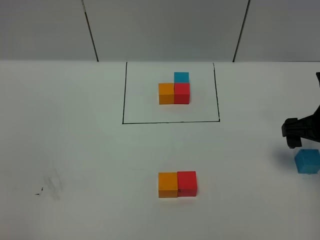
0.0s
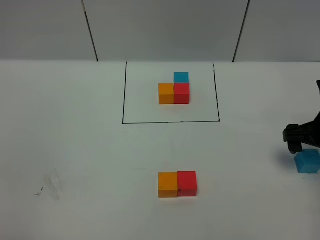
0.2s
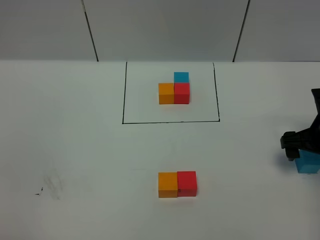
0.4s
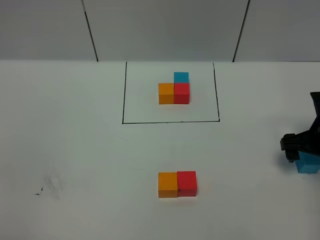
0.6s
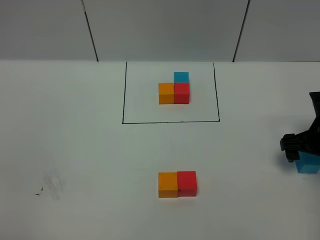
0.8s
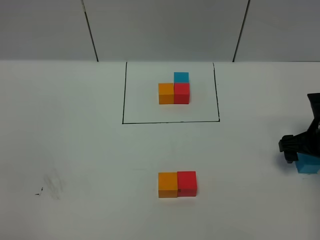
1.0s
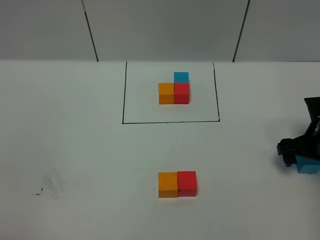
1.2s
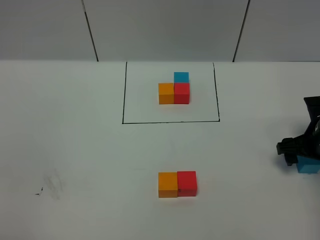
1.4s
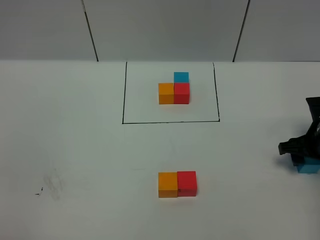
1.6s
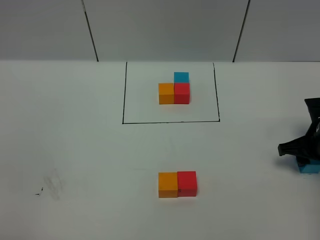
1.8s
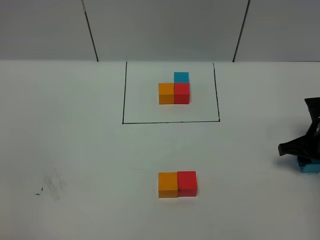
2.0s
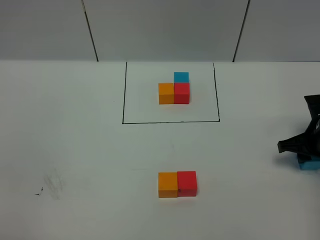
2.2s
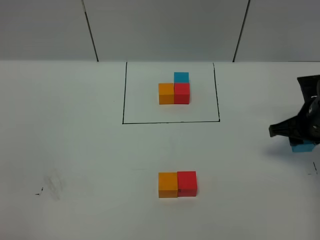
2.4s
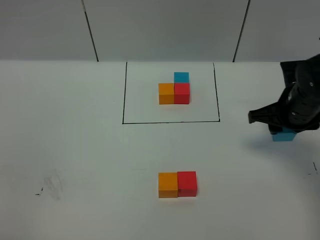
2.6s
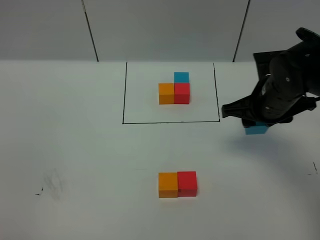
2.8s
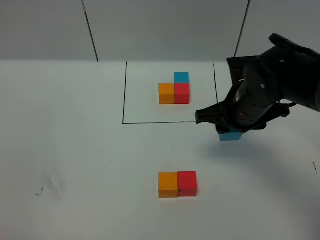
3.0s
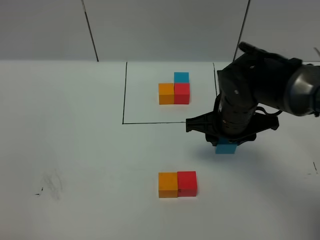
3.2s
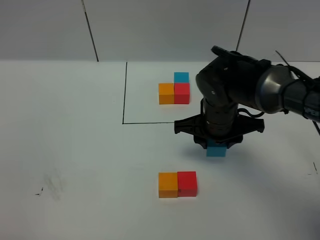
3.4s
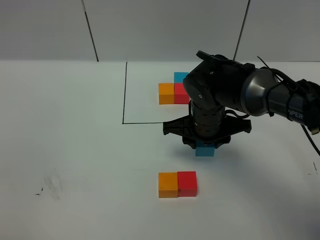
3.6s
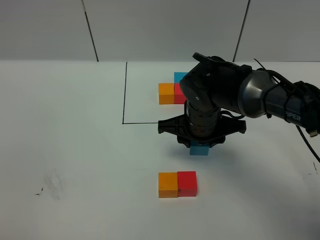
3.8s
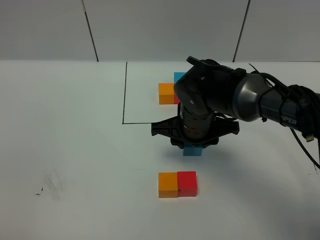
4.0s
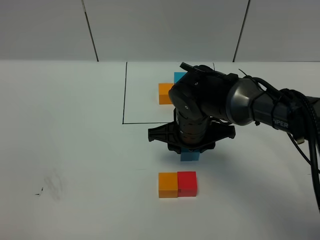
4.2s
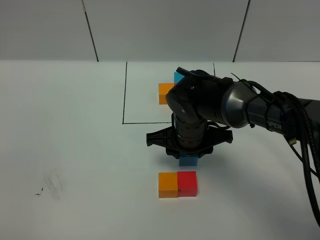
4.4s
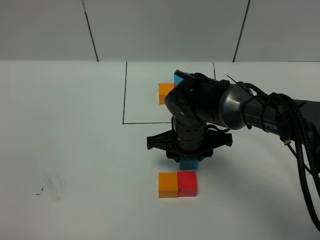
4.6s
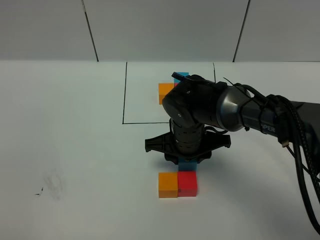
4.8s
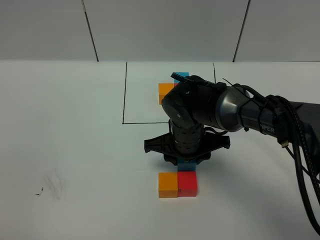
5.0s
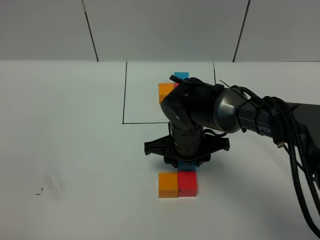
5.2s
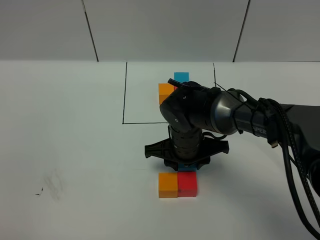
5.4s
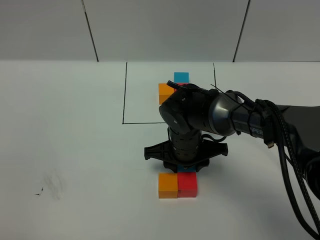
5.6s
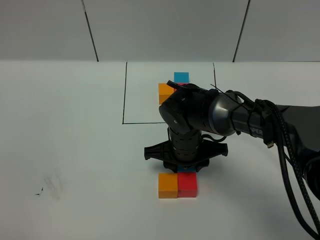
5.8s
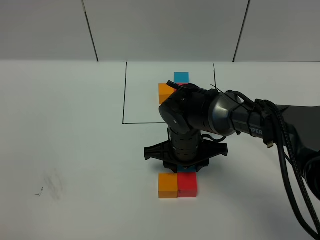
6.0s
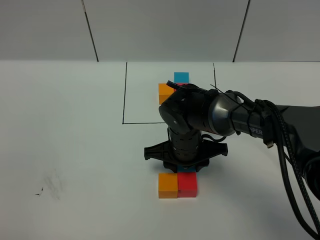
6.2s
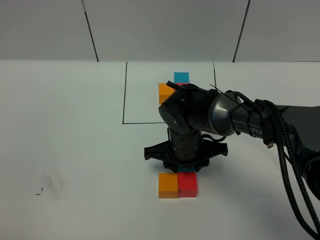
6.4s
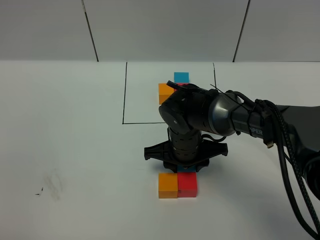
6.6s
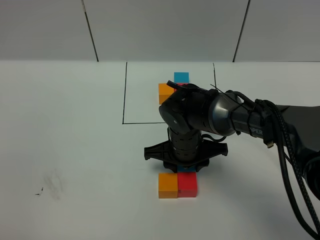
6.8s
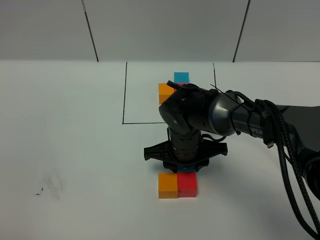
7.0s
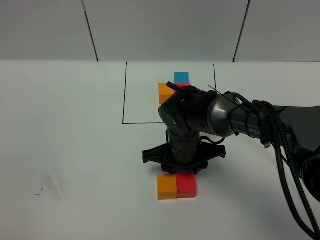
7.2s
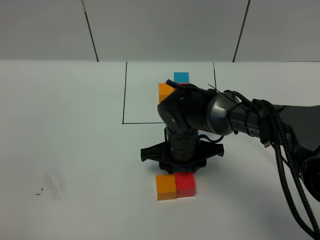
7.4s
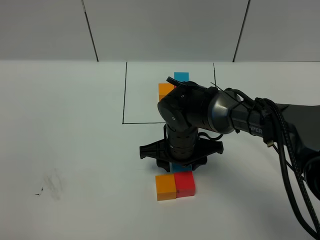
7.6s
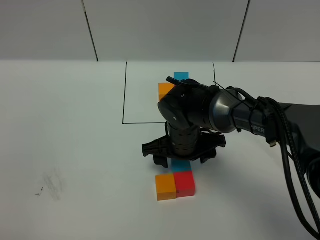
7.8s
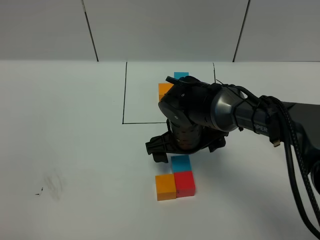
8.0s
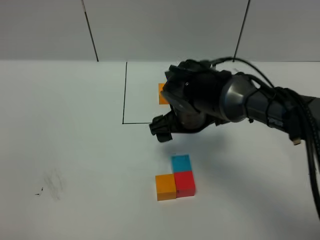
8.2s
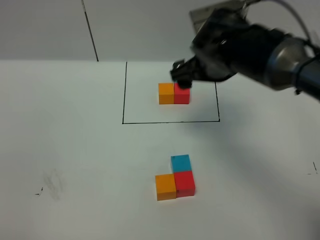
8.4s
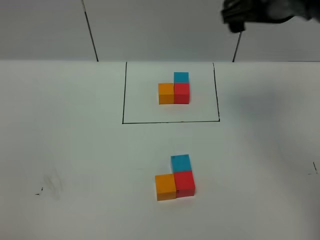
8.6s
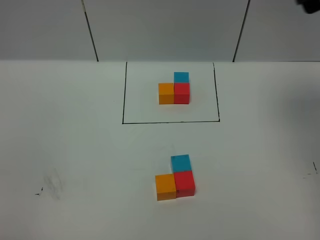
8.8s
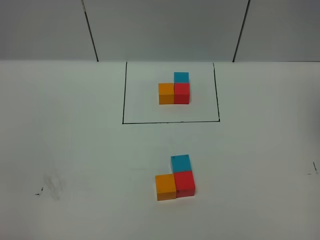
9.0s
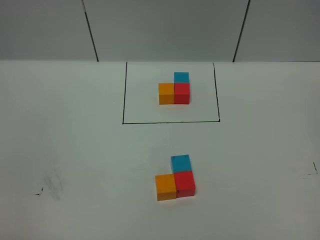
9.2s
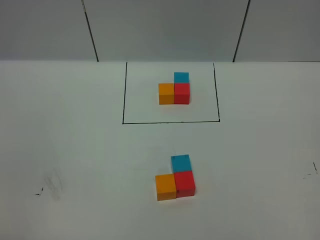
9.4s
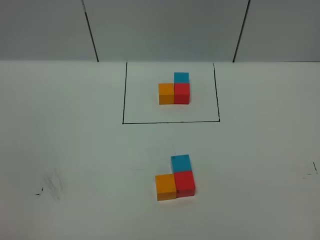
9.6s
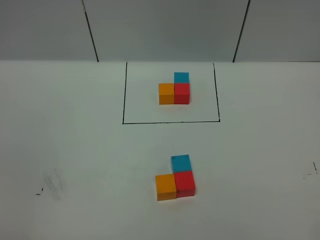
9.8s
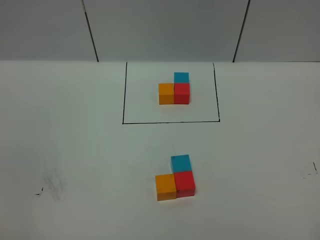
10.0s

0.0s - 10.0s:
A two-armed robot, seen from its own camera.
Task of the whole recording: According to the building block template in front, assemble the scattered blocks together.
Step, 0.0s - 8.6s: Put the blue cube on the behind of the red cube.
0.0s - 1.4s: The right gripper heads downward, covering approximately 5 cm.
1.4s - 2.8s: The right gripper moves to the left and upward, roughly 15 cm, and closes.
2.8s - 4.2s: The right gripper moves to the left, approximately 15 cm.
4.2s - 5.8s: The grippers stay close to where they were, moving slightly.
5.8s - 7.2s: Neither gripper changes place.
7.2s - 8.6s: The right gripper moves upward and to the right, approximately 30 cm, and opens up.
8.6s - 10.0s: The right gripper travels backward by approximately 40 cm.
